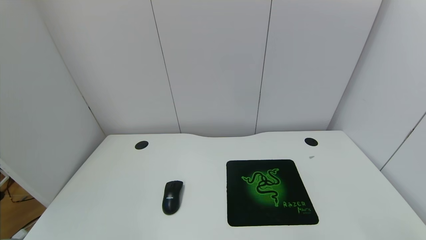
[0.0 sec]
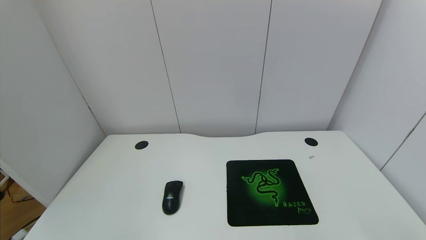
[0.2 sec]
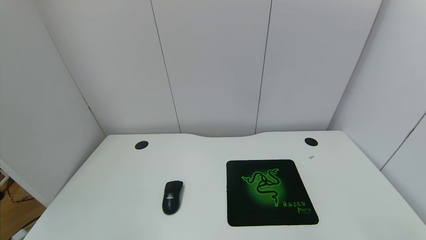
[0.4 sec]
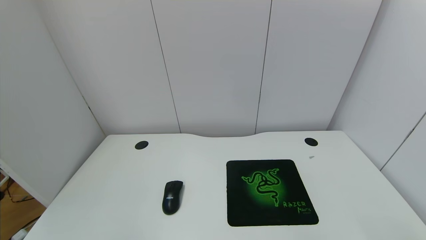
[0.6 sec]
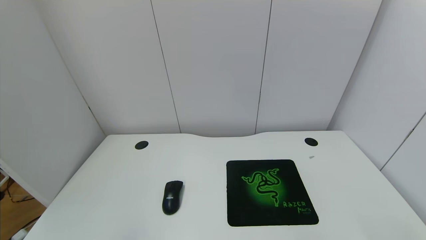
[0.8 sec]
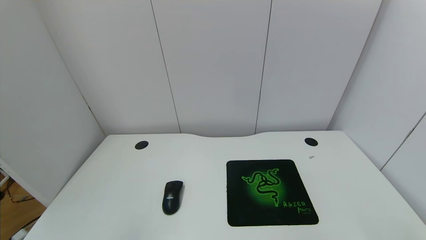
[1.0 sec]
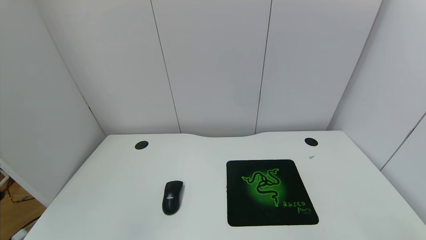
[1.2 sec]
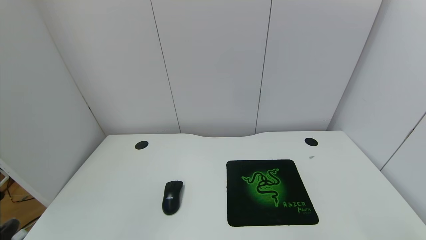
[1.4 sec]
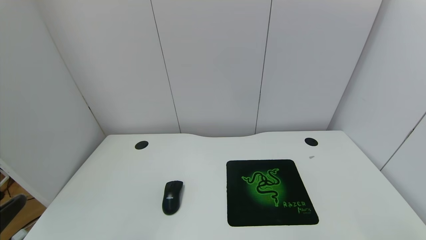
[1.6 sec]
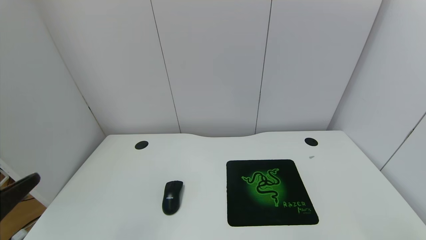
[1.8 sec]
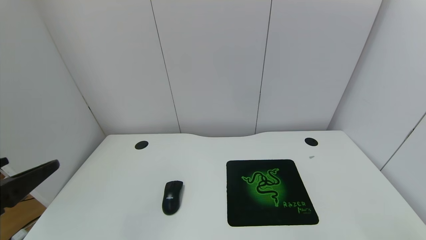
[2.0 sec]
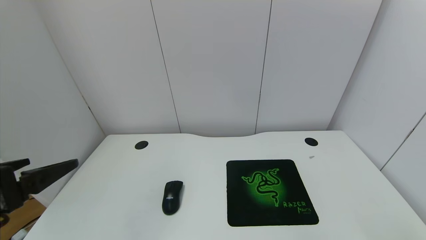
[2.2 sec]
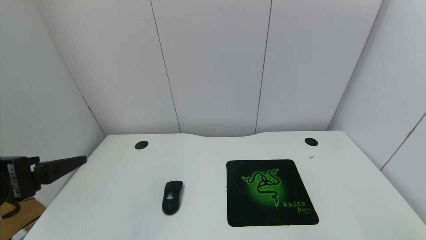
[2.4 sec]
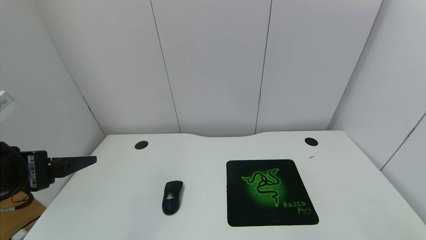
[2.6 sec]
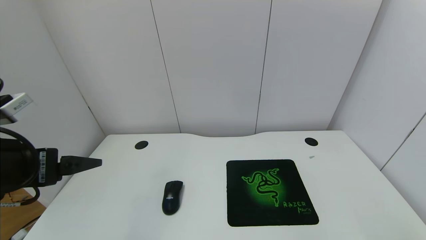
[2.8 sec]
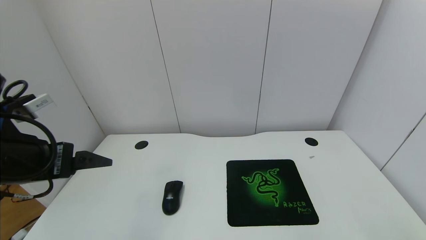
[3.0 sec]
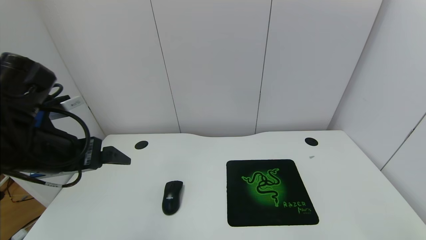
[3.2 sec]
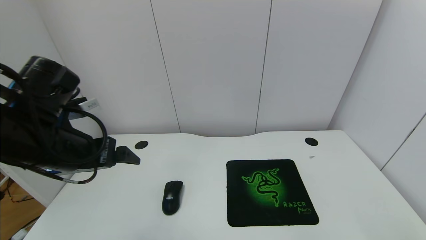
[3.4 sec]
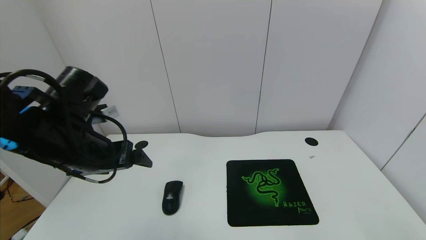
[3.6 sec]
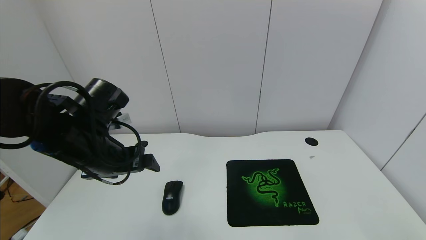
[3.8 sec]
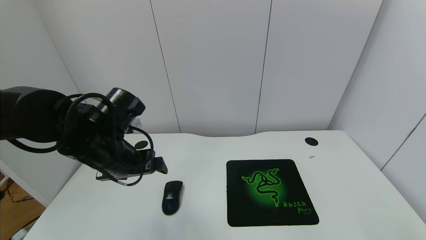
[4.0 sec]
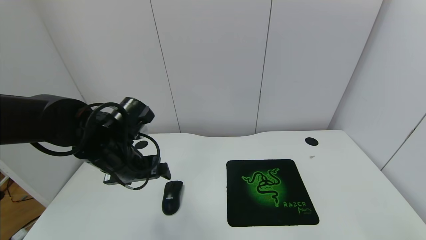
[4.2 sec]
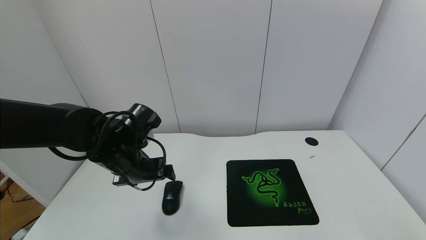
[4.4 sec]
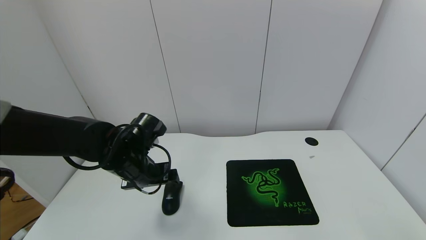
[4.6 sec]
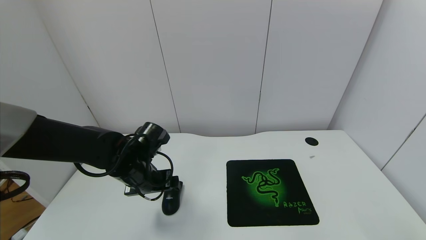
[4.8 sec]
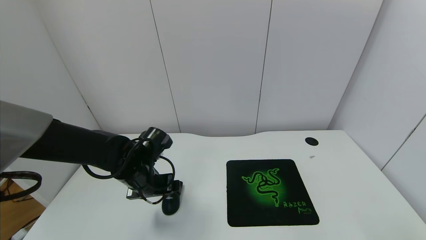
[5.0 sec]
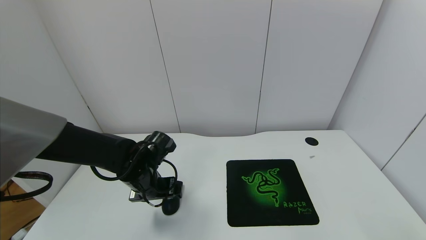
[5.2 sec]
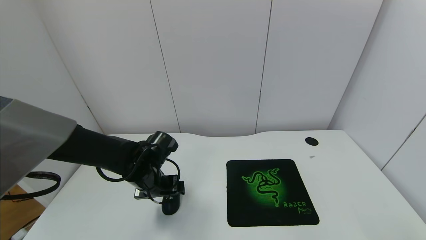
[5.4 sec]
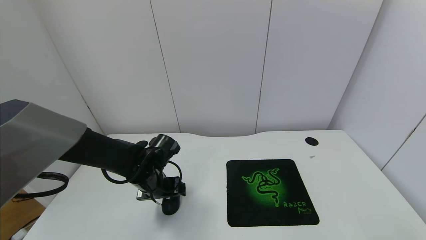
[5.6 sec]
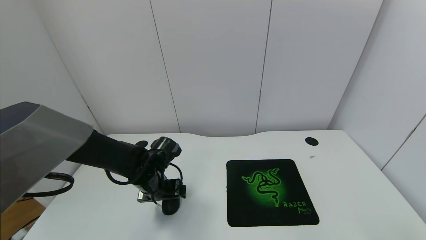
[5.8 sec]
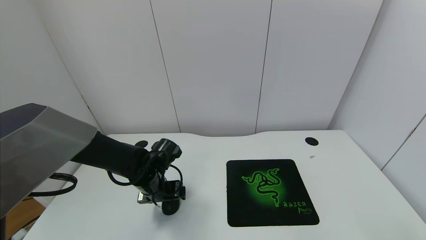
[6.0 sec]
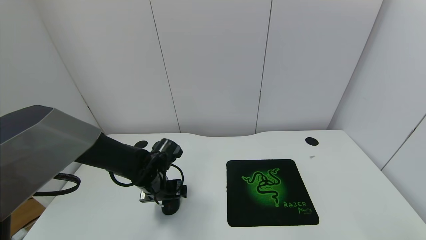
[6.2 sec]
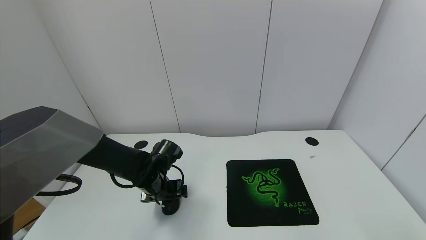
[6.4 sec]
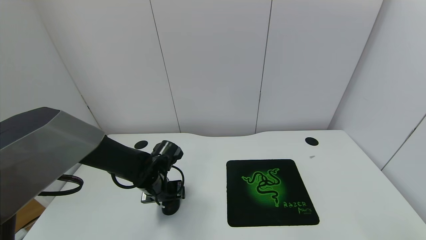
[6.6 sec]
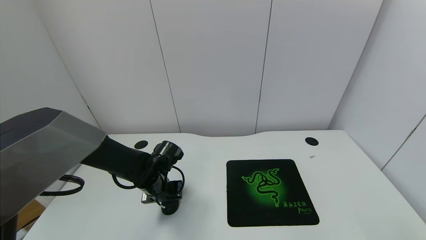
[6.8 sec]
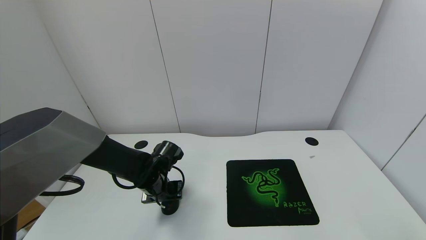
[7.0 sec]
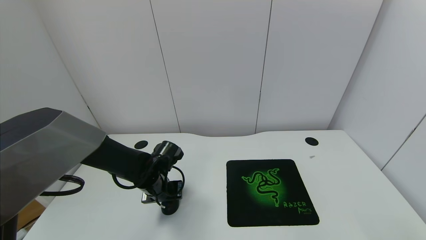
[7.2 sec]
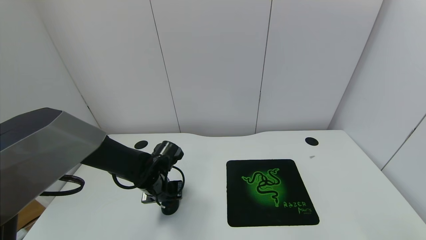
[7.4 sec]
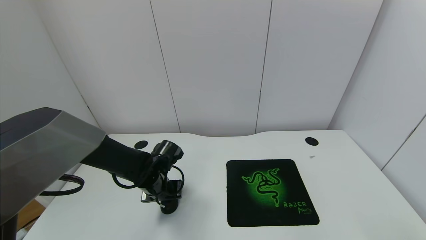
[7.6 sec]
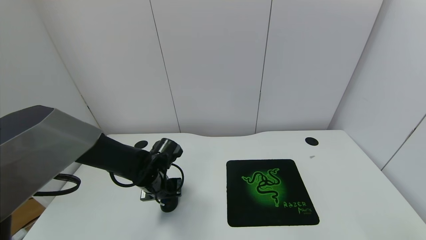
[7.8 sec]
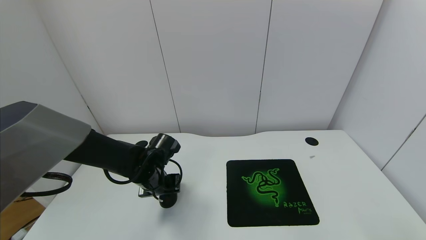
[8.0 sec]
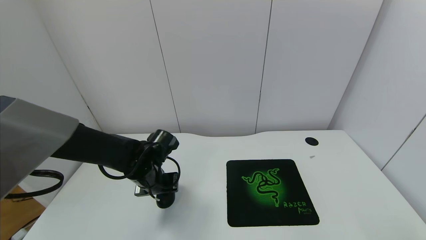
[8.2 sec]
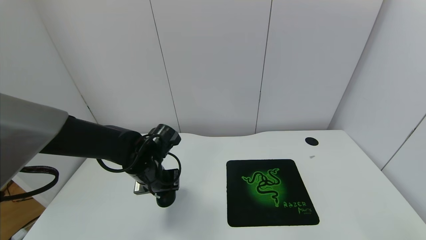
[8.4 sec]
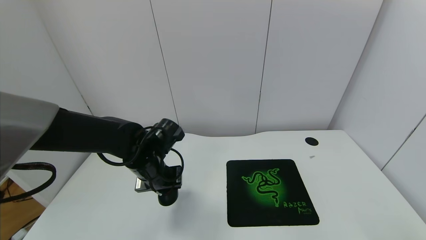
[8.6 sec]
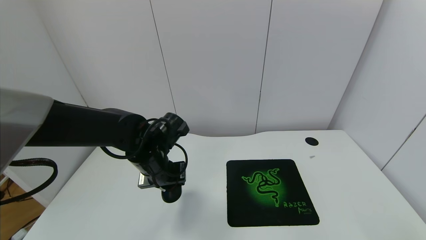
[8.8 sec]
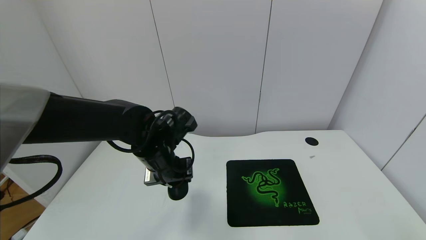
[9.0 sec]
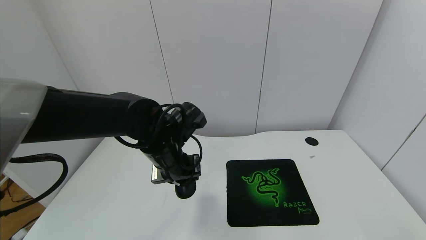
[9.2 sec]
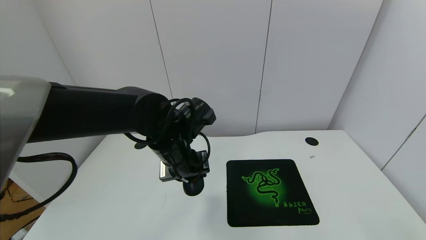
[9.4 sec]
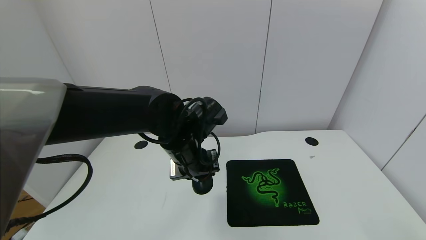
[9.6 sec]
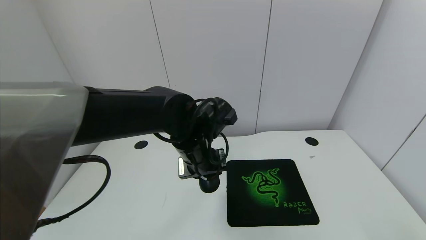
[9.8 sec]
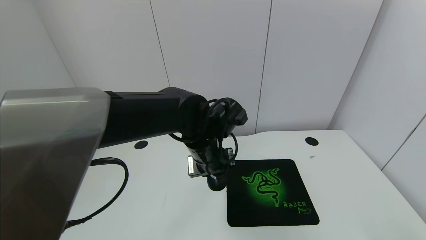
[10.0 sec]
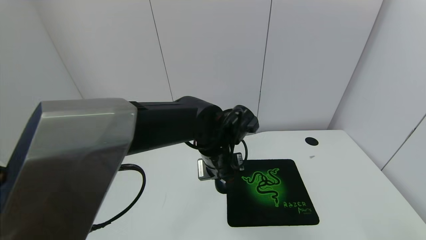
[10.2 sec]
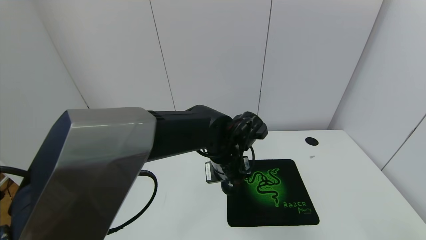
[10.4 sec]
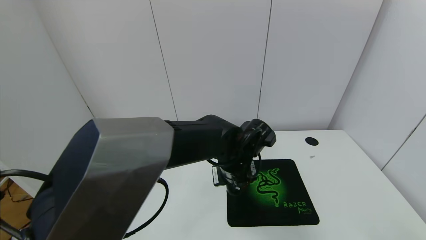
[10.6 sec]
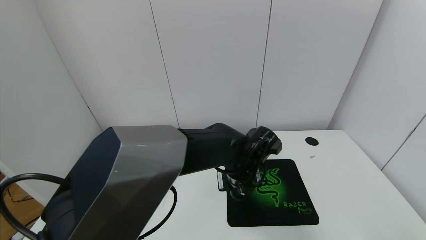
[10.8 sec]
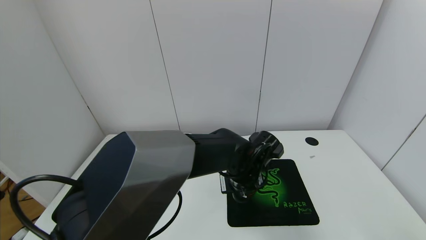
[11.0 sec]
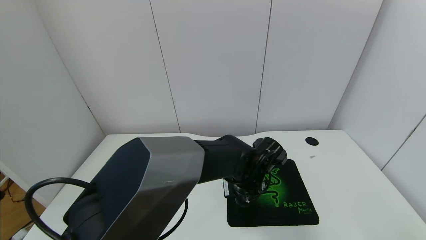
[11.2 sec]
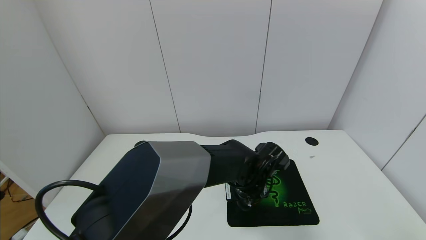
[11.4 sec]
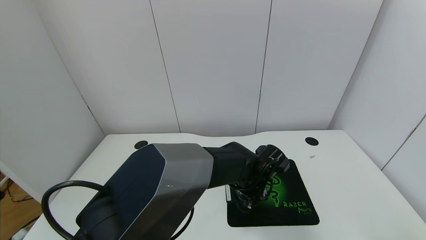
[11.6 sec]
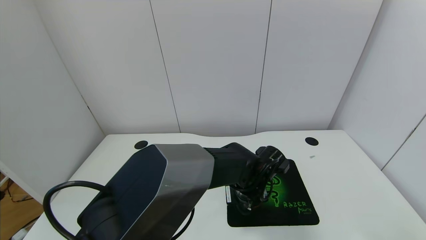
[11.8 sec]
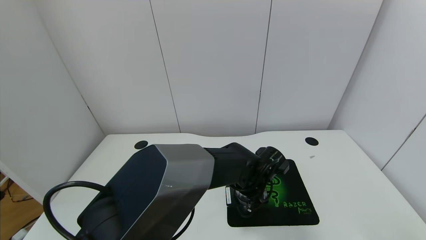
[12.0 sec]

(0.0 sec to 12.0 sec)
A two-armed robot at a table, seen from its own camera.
Task of the whole recording: use the gripper to move the mouse from one side of the table to the mouse pad on the opposite side.
Step, 0.0 sec - 7.2 sec: Grasp the mouse with the left gripper.
1.6 sec - 3.0 sec: The left gripper is displaced forward by approximately 15 cm.
3.0 sec - 4.4 sec: The left gripper goes approximately 15 cm forward, downward and to the right.
4.4 sec - 6.0 sec: The left gripper is displaced downward by about 10 cm.
6.0 sec - 7.6 sec: The left gripper closes up.
7.6 sec - 9.0 sec: The left gripper goes approximately 10 cm upward.
9.0 sec - 10.4 sec: The left gripper moves to the right, some 15 cm.
10.4 sec - 12.0 sec: The left gripper heads downward, covering approximately 5 cm.

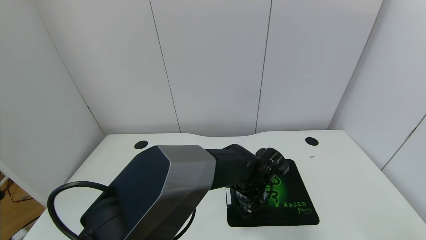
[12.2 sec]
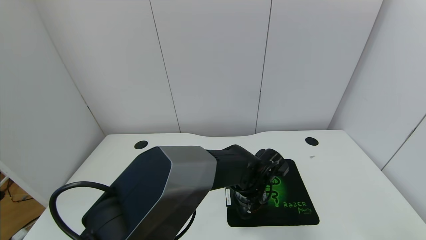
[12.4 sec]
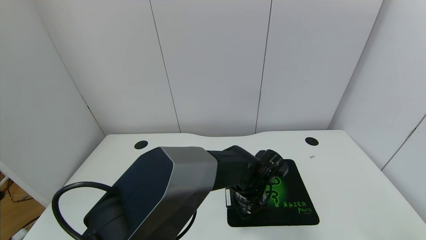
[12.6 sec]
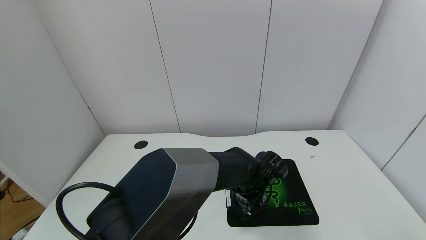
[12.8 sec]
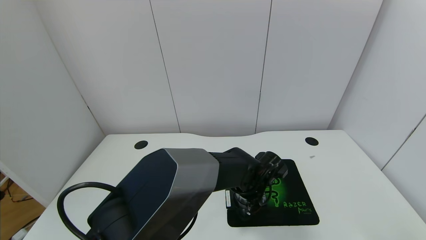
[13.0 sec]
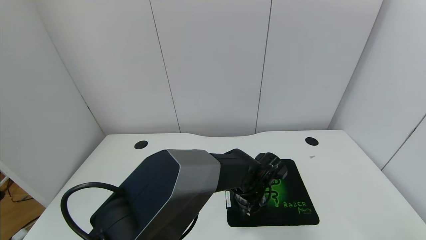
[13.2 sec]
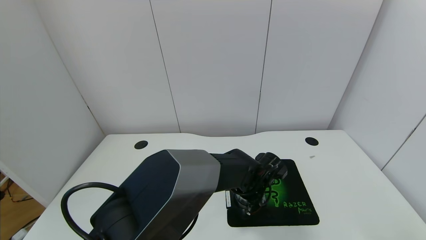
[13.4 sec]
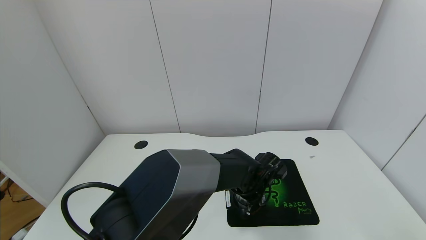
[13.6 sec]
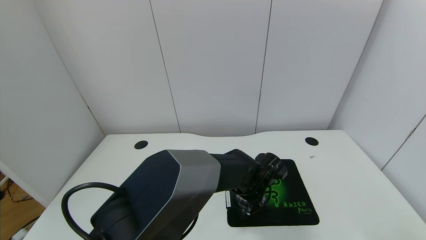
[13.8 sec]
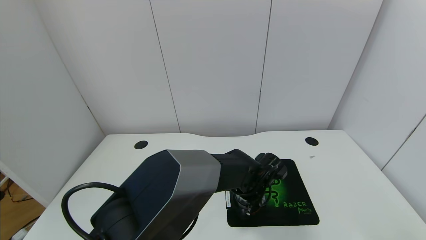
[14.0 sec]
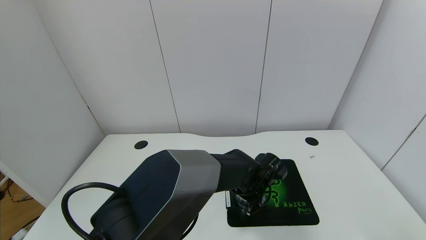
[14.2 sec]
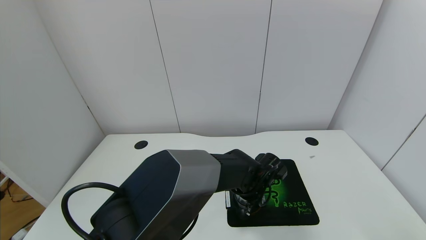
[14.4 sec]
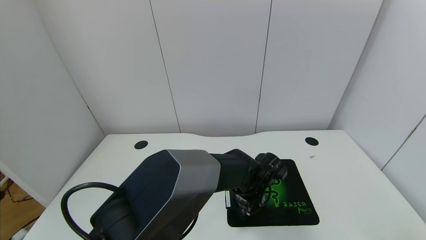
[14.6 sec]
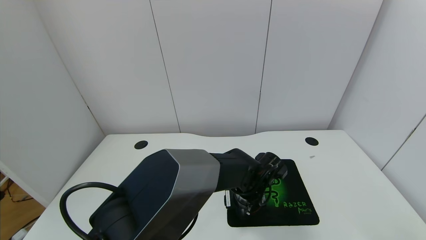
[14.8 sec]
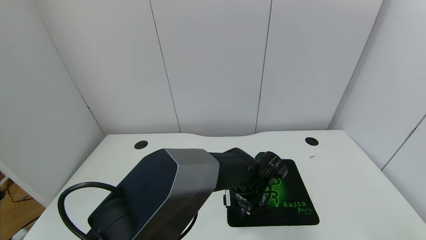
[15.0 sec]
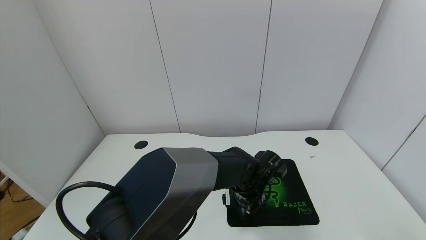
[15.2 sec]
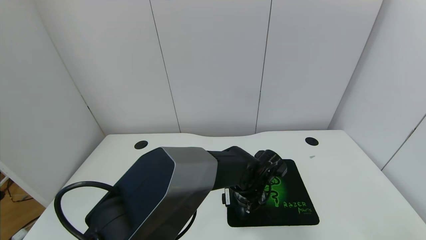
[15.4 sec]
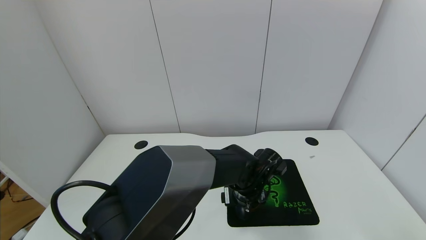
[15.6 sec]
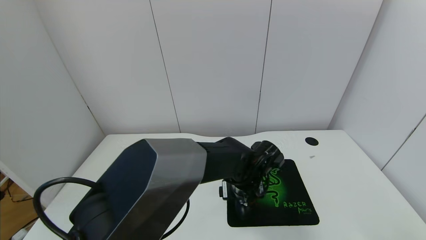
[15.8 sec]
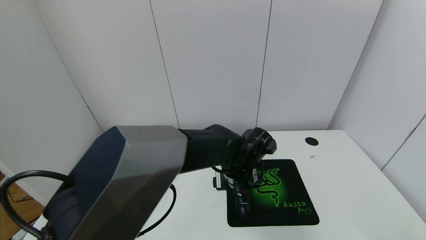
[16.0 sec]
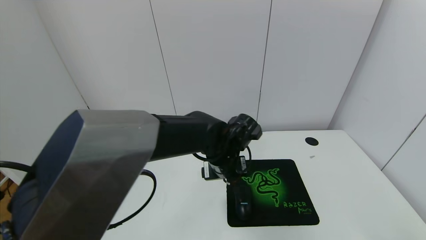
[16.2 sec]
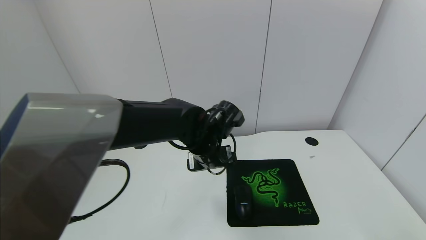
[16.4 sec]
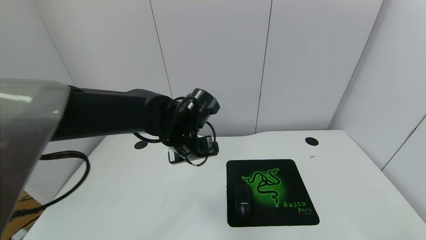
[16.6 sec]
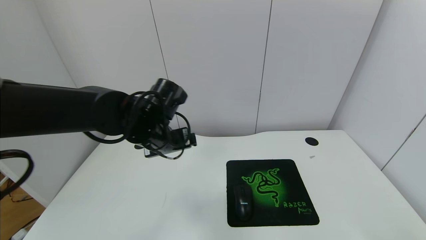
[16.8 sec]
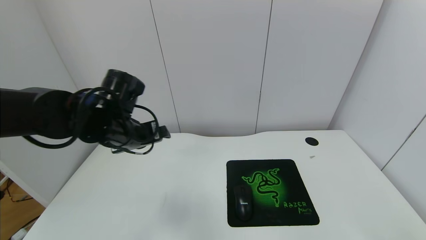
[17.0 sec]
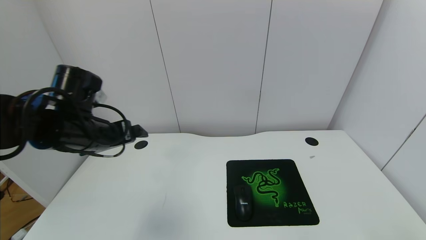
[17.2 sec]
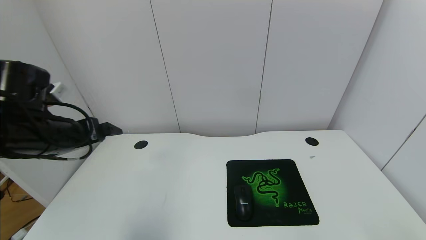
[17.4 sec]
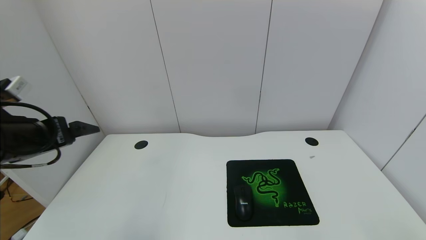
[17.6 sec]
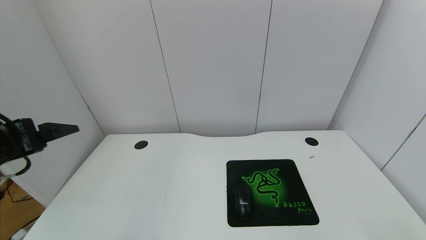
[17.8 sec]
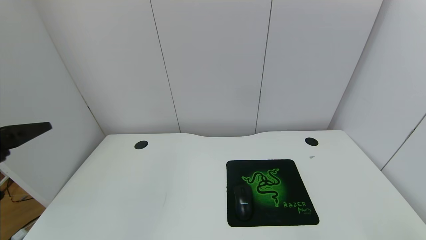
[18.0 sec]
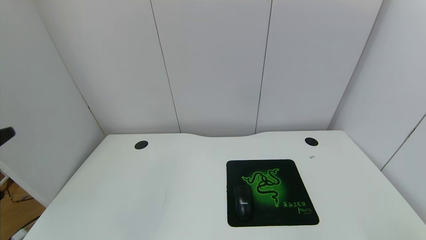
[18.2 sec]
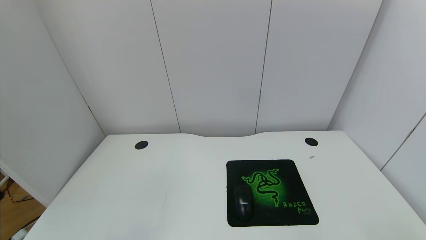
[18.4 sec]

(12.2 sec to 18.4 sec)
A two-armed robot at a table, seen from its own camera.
Task of the whole recording: use the gripper to move the mouse from one side of the table to the mouse pad on the opposite side.
Step, 12.2 sec - 16.2 sec: Place the mouse on the mouse pad with the left gripper.
12.2 sec - 13.8 sec: The grippers stay close to where they were, moving slightly.
13.8 sec - 15.4 sec: The left gripper opens up.
15.4 sec - 16.8 sec: The left gripper heads to the left and upward, covering some 25 cm.
16.8 sec - 18.4 sec: The left gripper heads backward and to the left, covering about 35 cm.
